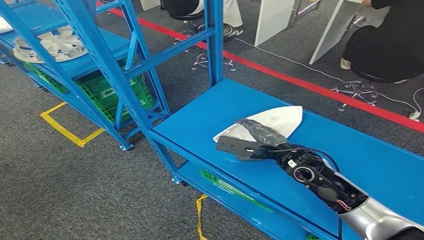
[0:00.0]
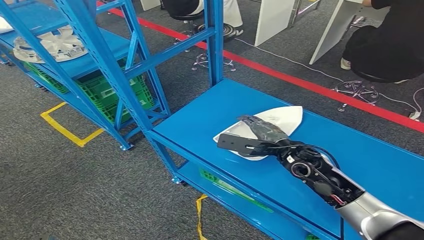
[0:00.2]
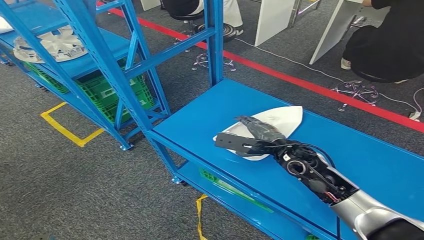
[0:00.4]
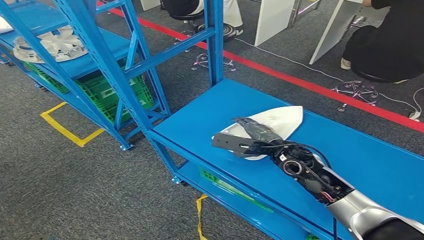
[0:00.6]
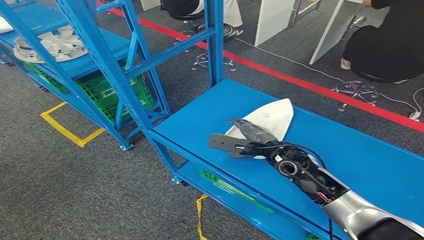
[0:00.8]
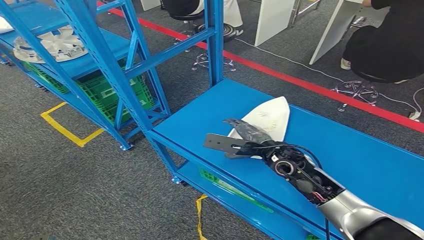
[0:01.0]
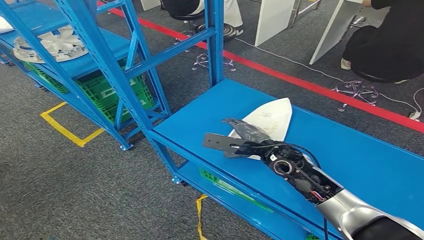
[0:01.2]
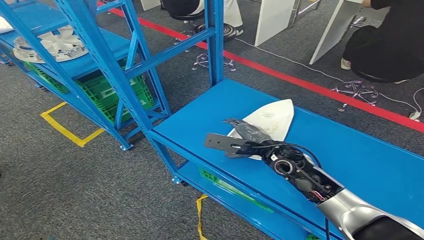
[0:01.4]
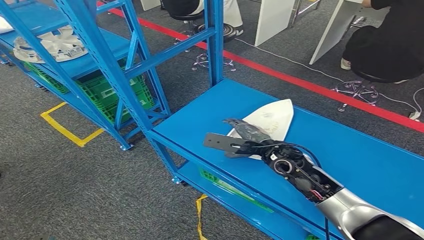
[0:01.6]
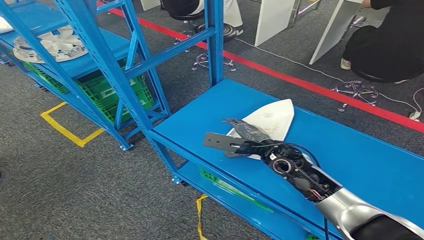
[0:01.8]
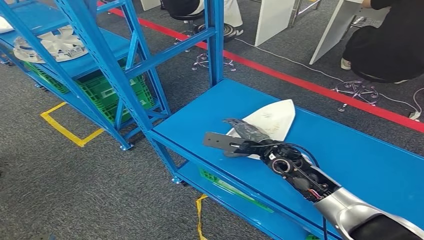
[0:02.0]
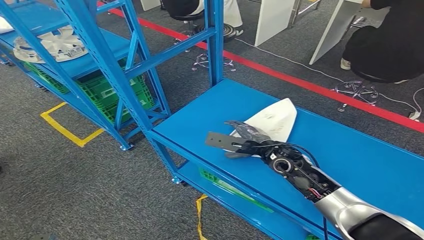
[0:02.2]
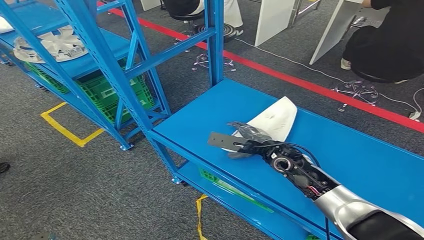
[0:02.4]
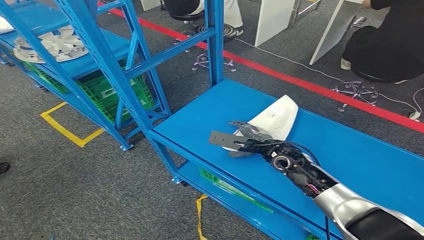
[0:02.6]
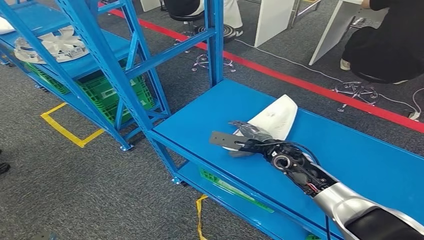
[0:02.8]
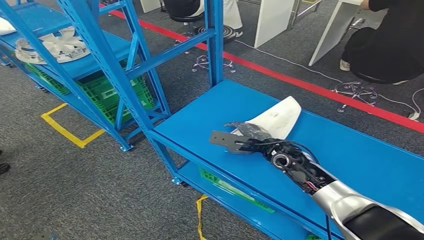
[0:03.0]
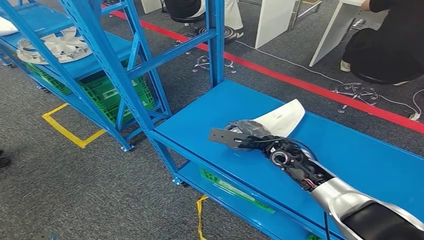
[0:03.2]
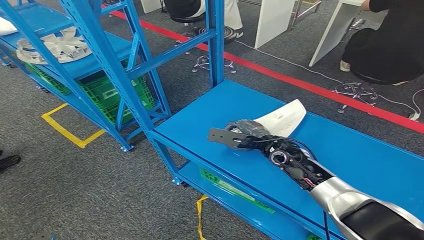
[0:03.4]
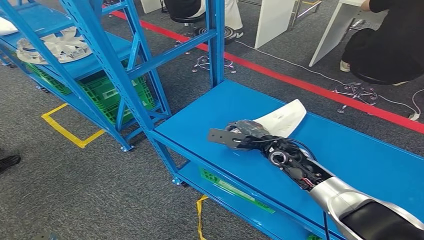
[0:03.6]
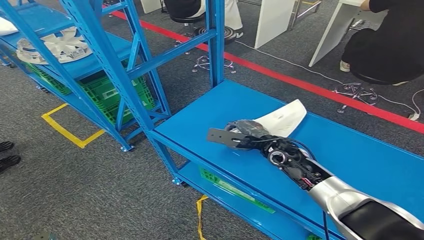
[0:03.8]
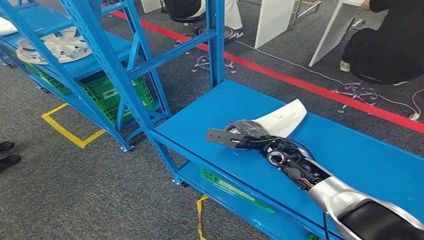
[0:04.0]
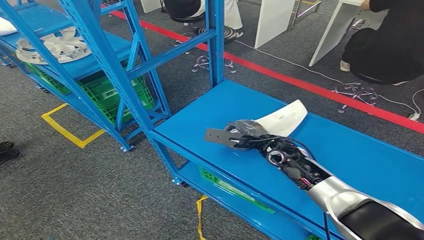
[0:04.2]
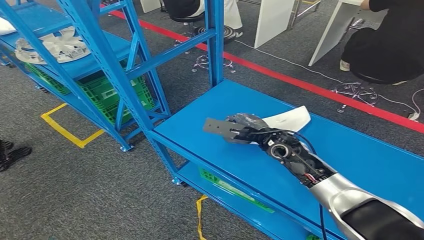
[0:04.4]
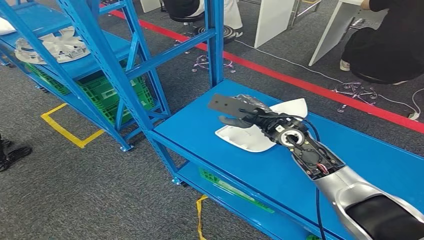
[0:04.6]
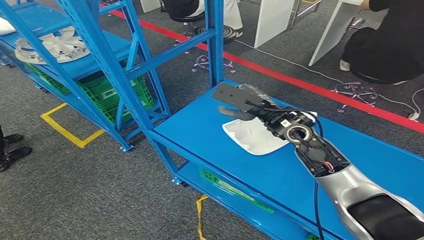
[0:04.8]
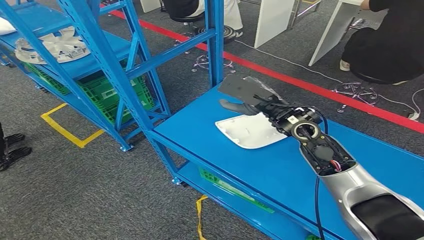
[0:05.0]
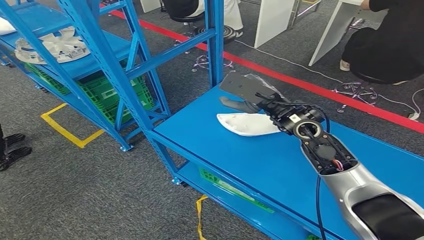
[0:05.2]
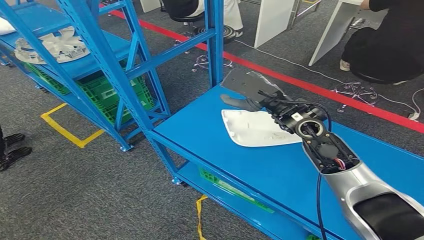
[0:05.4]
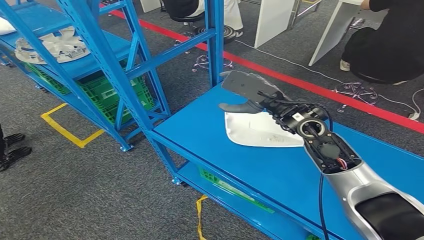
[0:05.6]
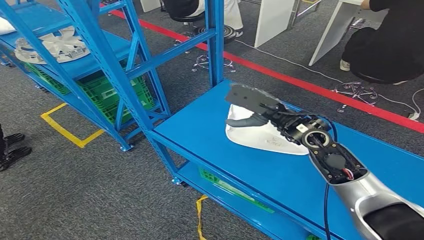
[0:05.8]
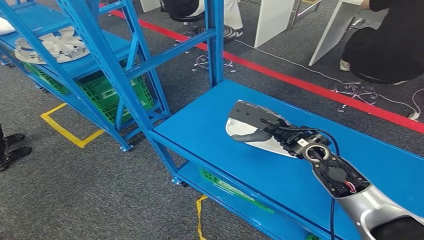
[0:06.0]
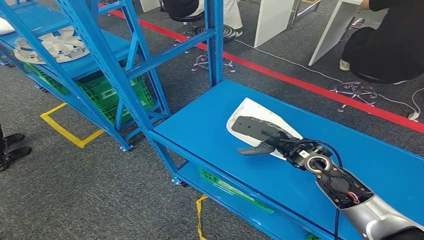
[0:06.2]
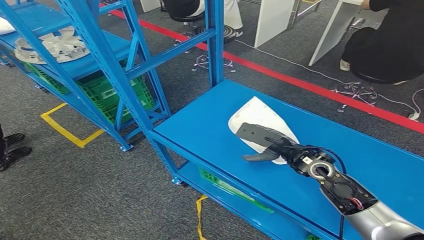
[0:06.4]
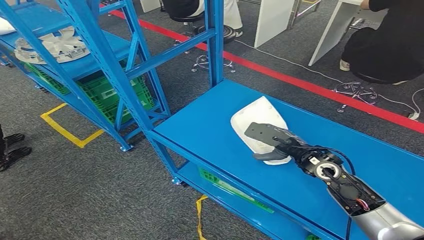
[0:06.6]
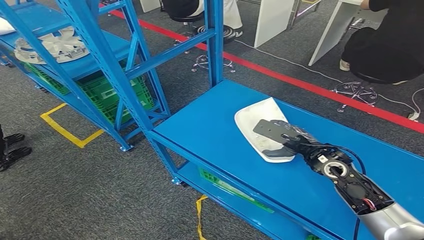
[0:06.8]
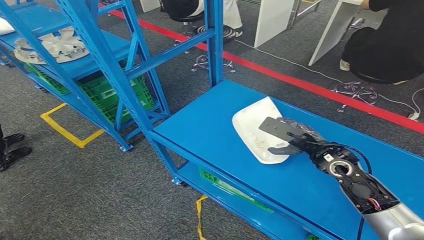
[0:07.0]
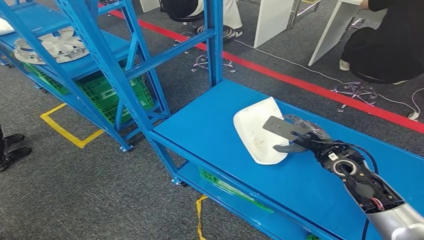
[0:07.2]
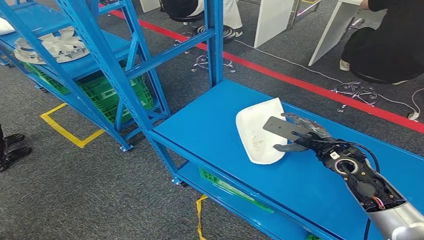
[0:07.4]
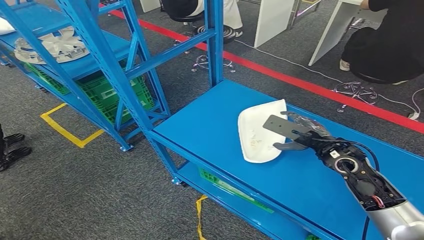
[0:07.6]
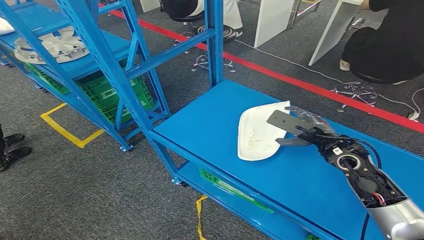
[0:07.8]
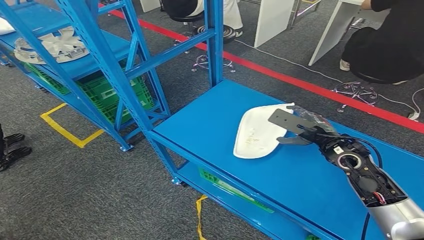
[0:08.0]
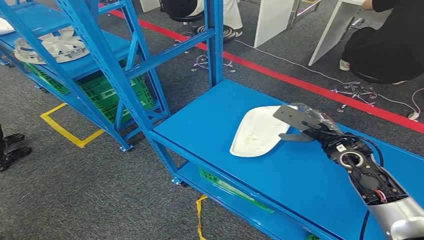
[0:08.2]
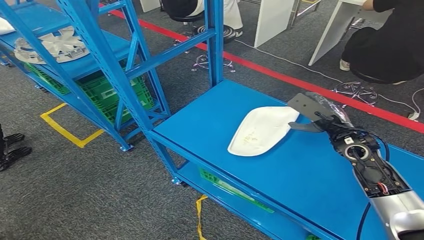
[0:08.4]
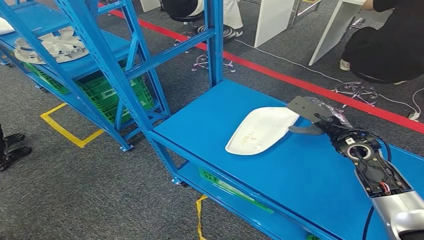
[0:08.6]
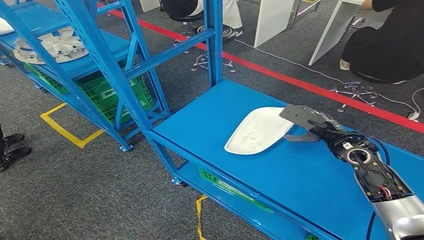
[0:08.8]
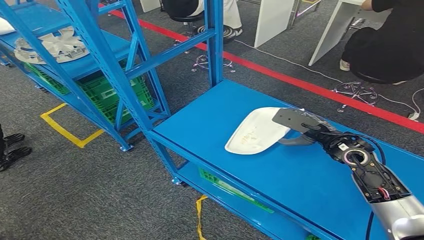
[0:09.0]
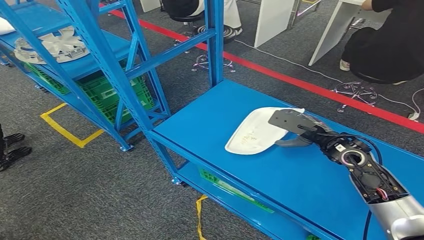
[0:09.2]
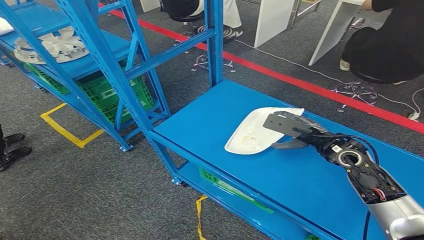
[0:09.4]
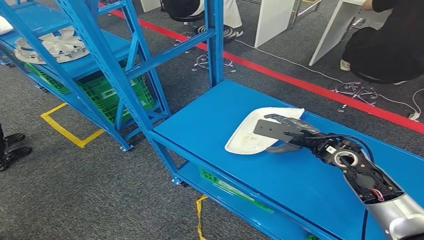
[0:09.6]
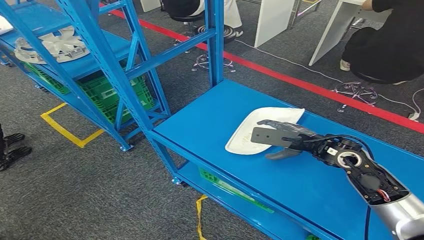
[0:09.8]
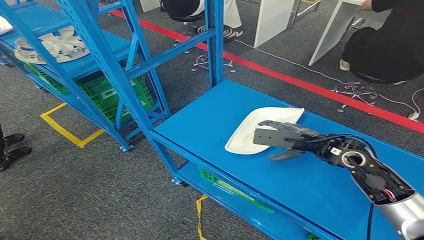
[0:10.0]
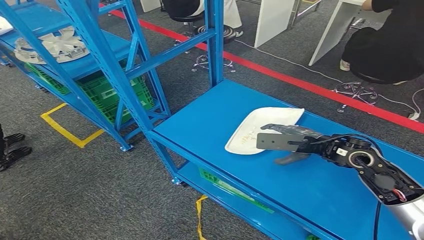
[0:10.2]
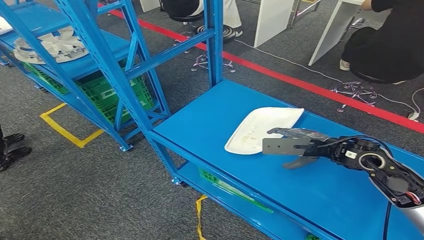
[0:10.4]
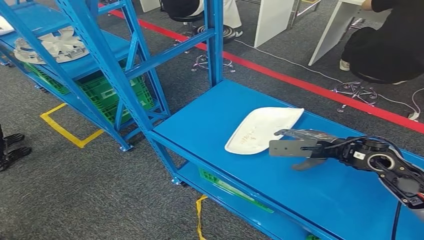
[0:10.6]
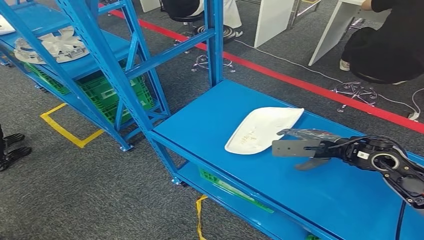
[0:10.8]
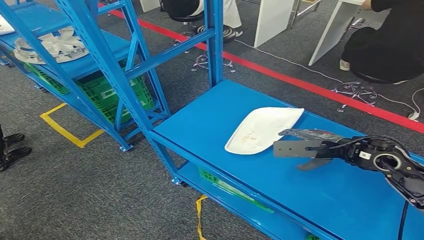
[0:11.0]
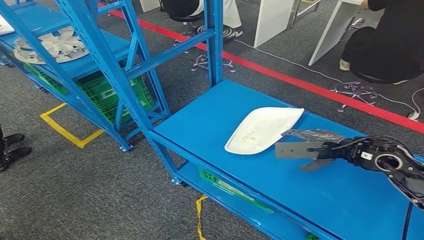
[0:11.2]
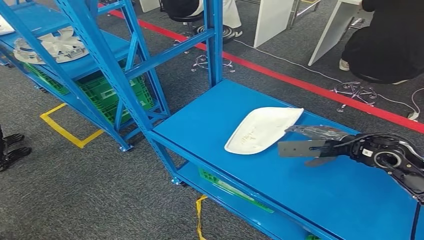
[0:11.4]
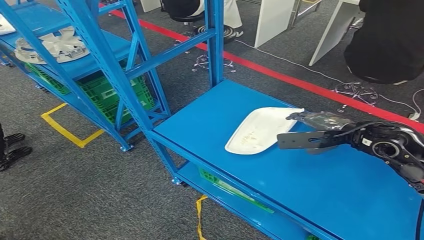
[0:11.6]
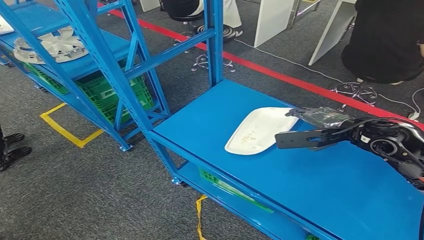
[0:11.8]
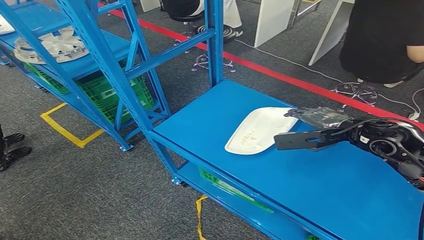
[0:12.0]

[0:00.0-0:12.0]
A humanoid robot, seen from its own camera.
0:00.0 to 0:01.6: The hands make only small movements.
0:01.6 to 0:04.4: The hands move only a little.
0:04.4 to 0:06.0: The right hand shifts about 5 cm upward.
0:06.0 to 0:07.6: The right hand travels to the right by some 5 cm.
0:07.6 to 0:09.0: There are only small adjustments of the hands.
0:10.4 to 0:12.0: The right hand moves approximately 5 cm.

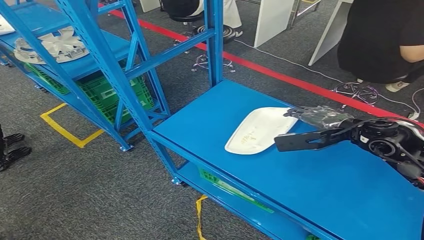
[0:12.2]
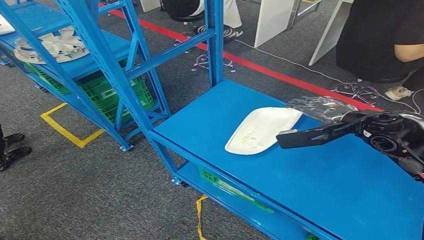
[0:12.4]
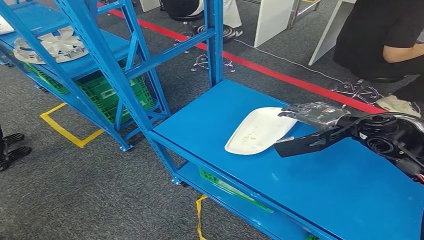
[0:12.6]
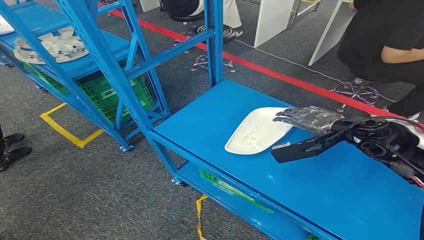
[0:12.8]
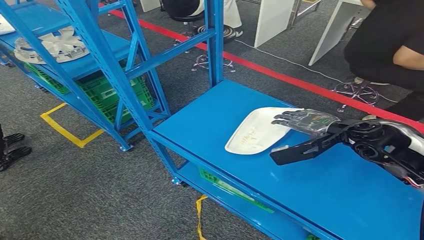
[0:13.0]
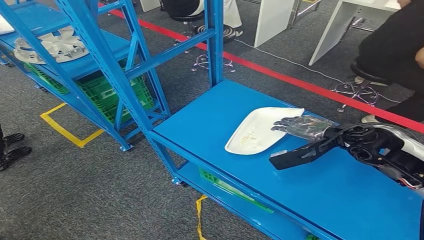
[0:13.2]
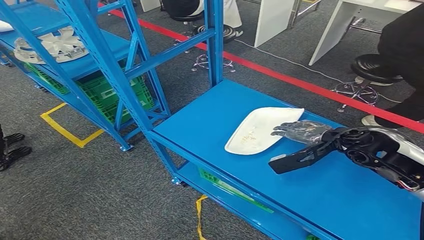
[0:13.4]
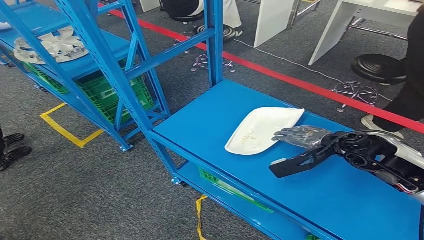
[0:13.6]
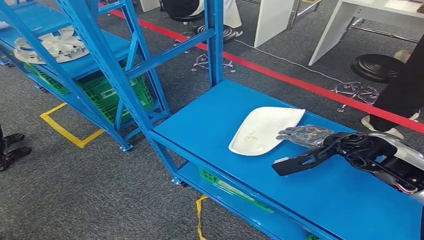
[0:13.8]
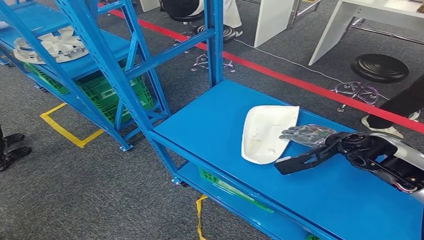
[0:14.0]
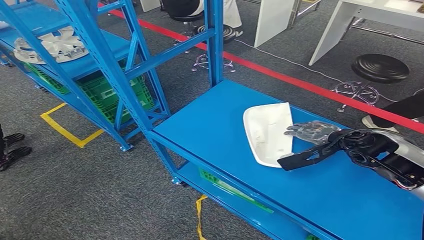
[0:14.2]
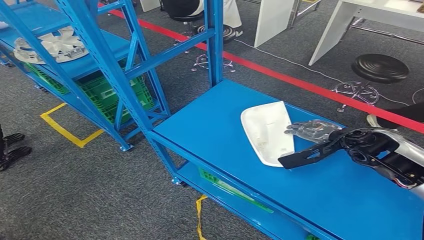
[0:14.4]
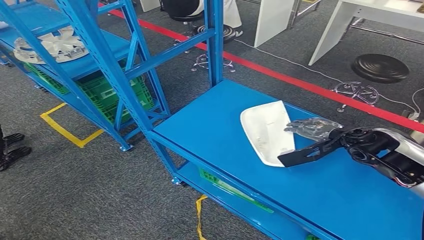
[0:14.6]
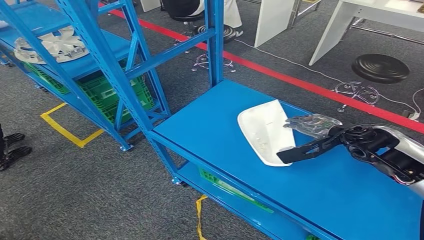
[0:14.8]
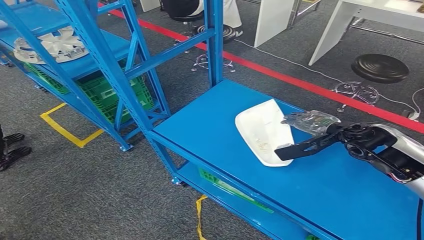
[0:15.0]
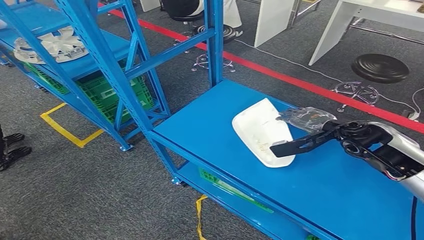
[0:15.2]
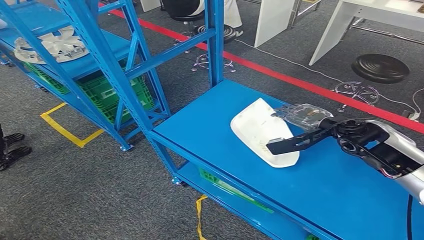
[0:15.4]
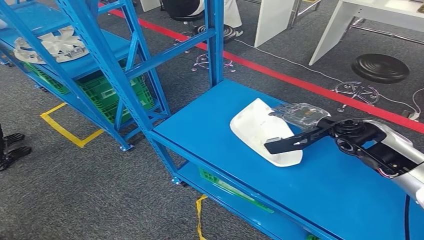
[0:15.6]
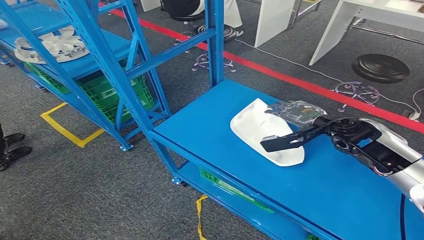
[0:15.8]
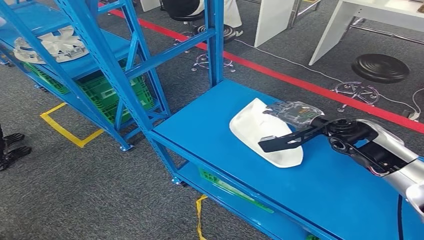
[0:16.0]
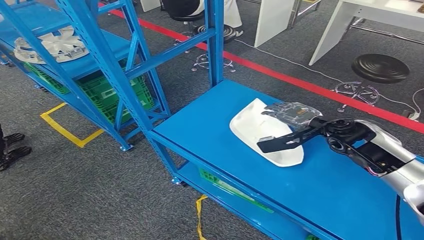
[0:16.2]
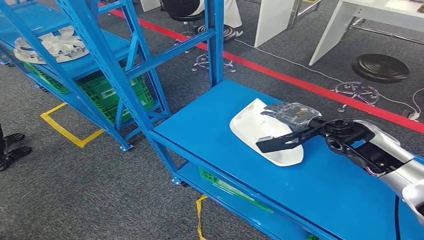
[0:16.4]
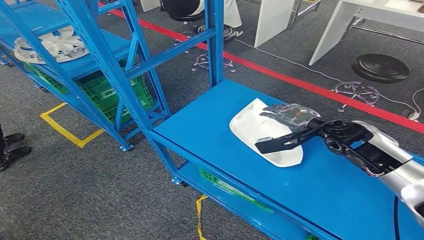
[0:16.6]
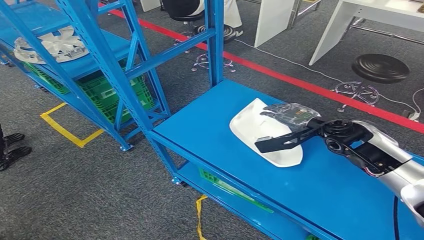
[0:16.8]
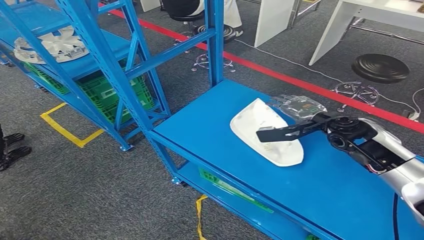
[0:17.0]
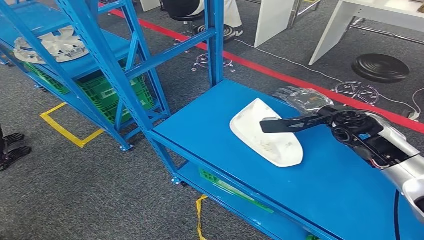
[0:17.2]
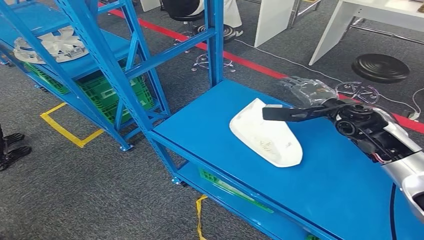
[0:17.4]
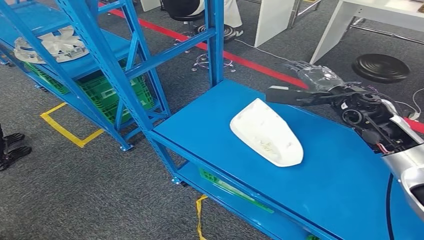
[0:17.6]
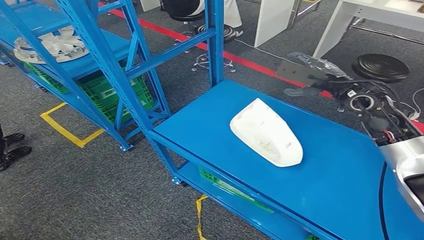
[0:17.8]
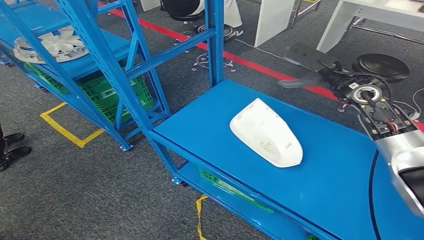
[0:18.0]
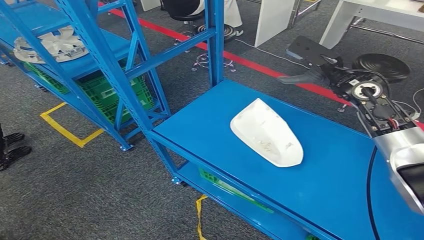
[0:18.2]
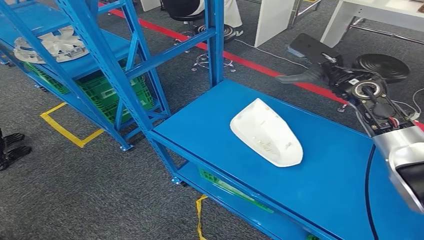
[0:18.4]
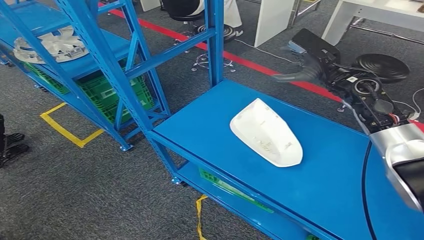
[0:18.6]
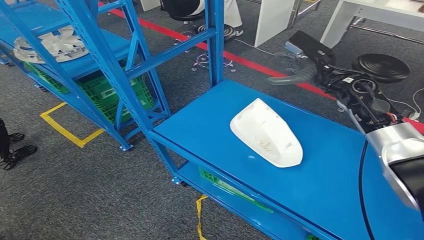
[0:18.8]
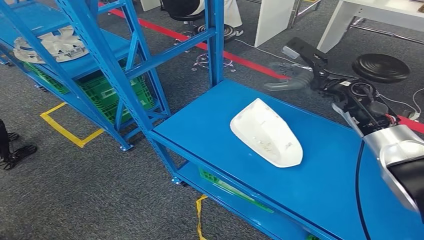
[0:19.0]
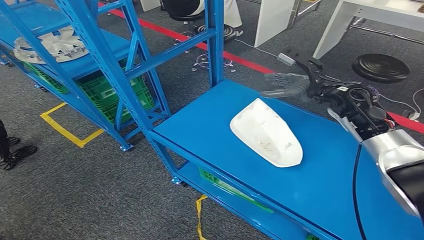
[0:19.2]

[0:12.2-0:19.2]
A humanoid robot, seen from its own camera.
0:12.2 to 0:13.6: The right hand travels downward by some 5 cm.
0:13.6 to 0:16.4: The hands stay close to where they were, moving slightly.
0:16.4 to 0:17.8: The right hand shifts some 10 cm upward.